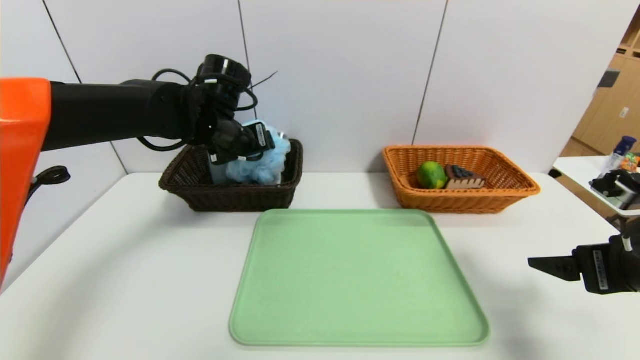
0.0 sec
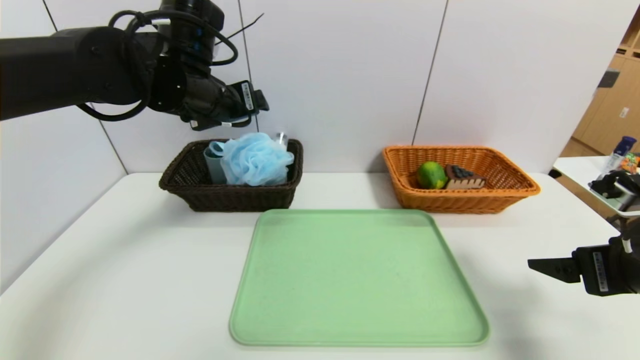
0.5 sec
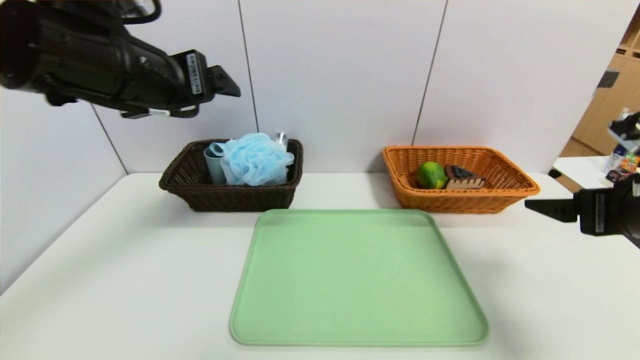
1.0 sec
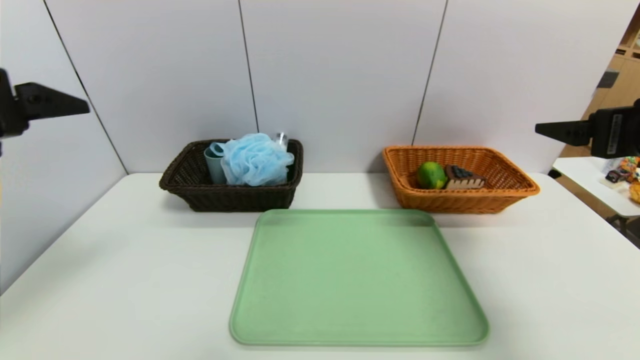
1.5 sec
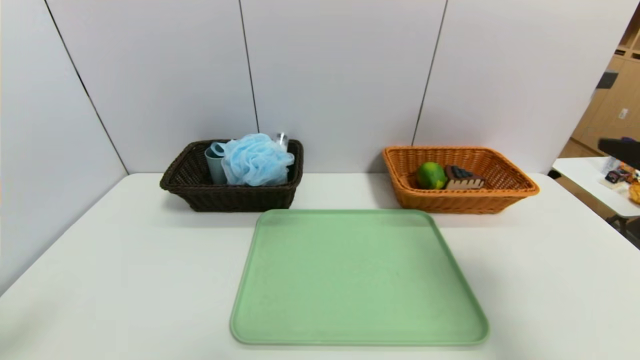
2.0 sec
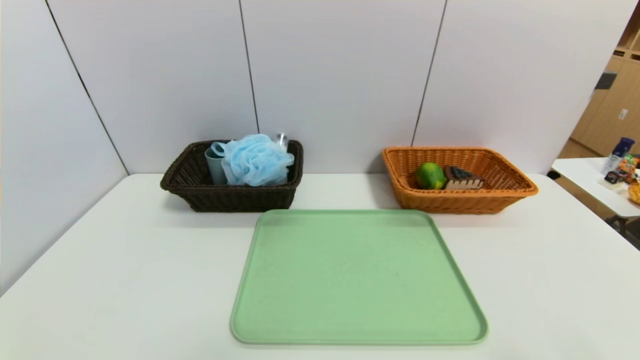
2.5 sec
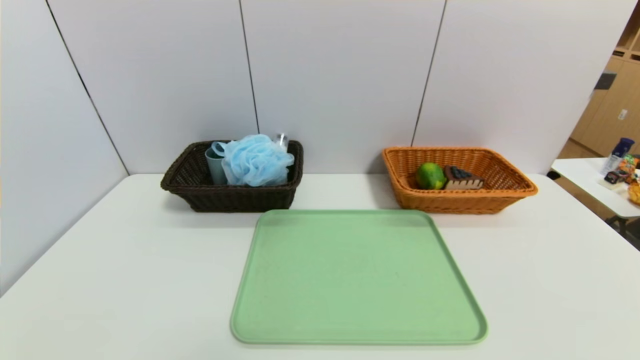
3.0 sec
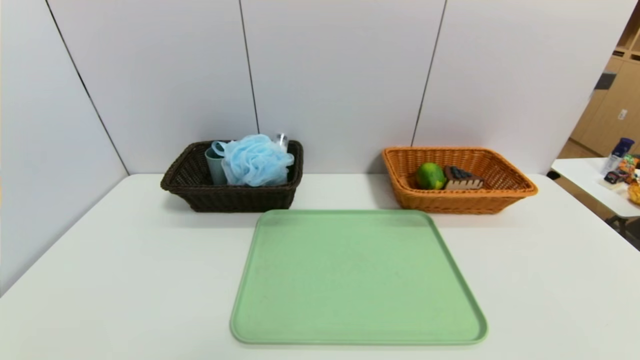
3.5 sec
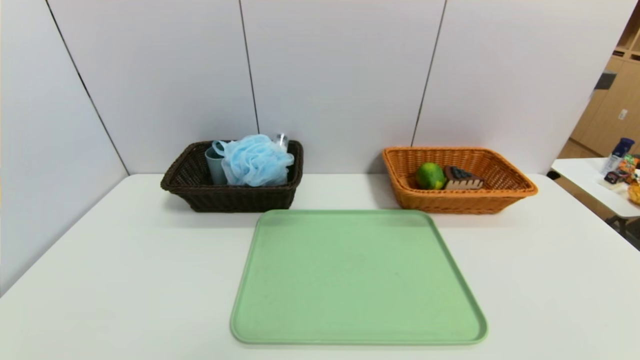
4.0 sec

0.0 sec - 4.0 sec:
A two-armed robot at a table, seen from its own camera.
Task of the whole recording: place the food in the right basket with the right gripper, and place the non food items in the left basket with the left gripper.
0.0 sec - 2.0 sec: The left gripper moves backward and to the left, some 40 cm, while the right gripper goes about 10 cm upward.
2.0 sec - 4.0 sec: The left gripper shifts some 20 cm downward. Meanwhile the right gripper moves downward and backward, approximately 25 cm.
